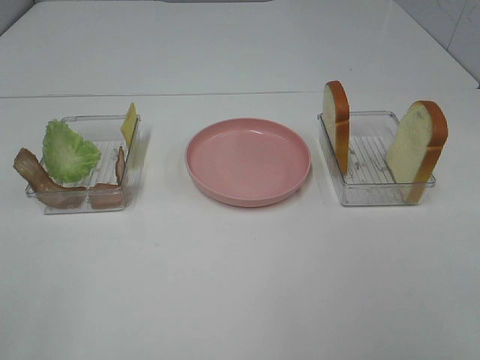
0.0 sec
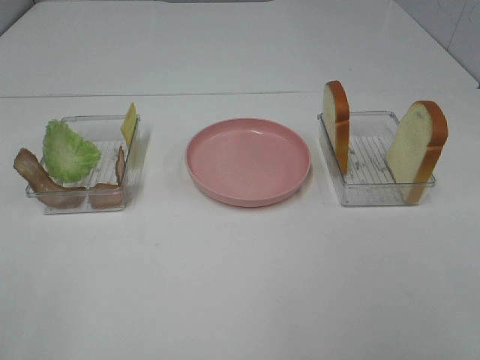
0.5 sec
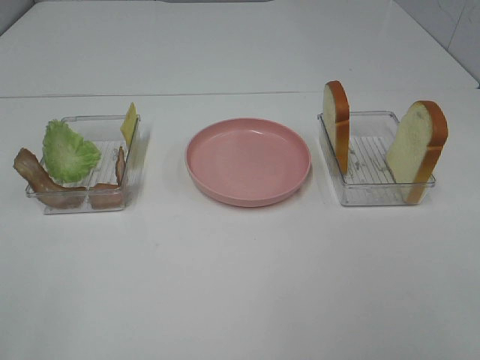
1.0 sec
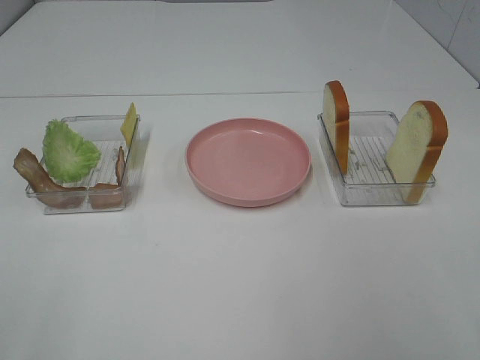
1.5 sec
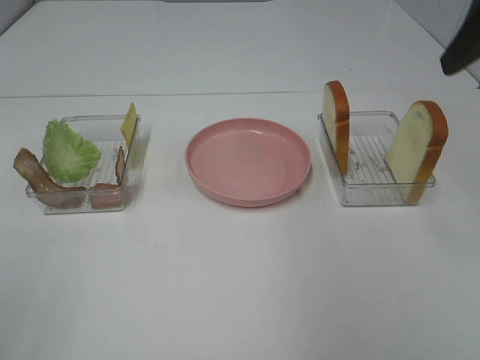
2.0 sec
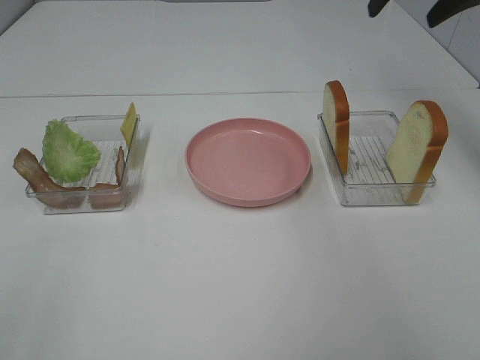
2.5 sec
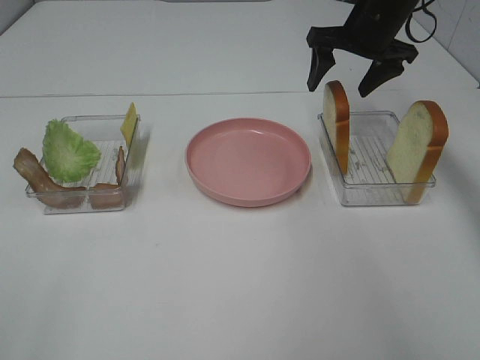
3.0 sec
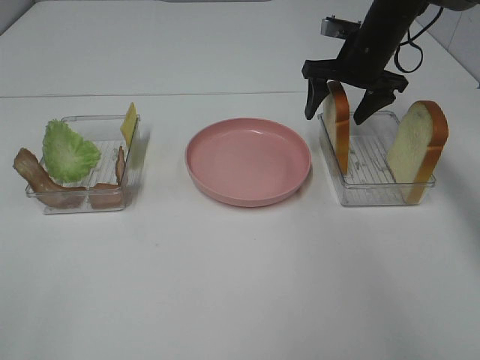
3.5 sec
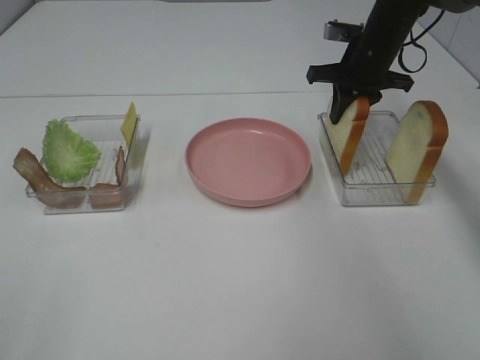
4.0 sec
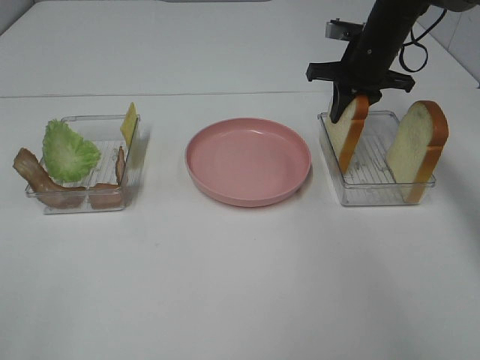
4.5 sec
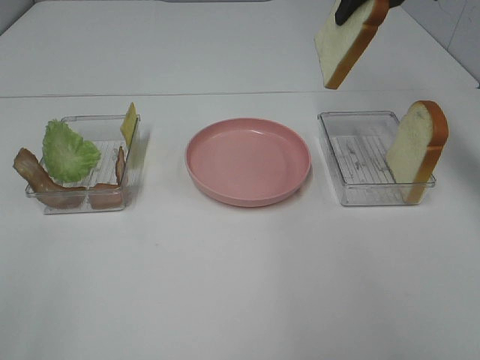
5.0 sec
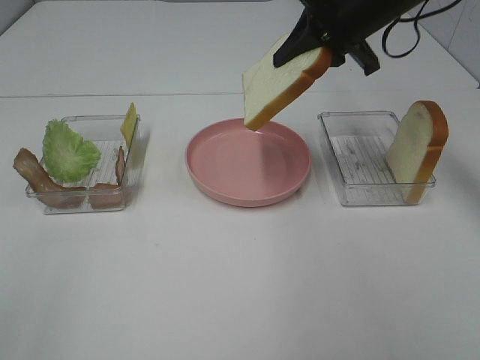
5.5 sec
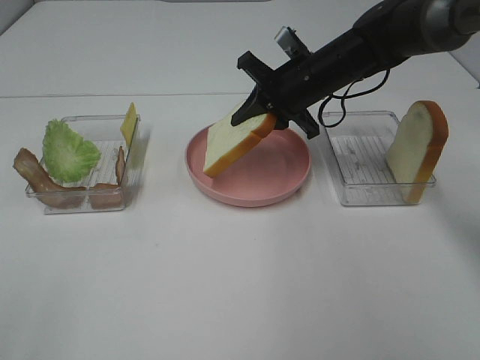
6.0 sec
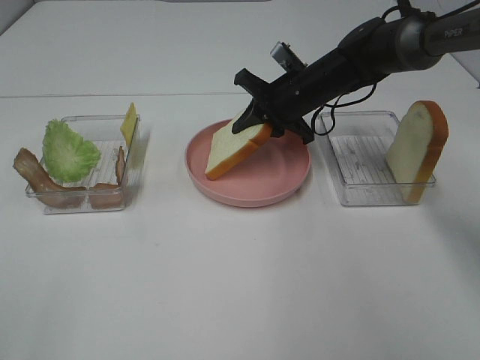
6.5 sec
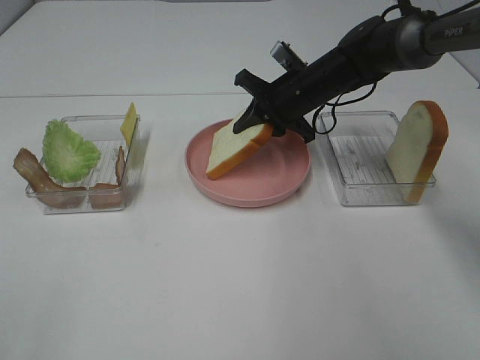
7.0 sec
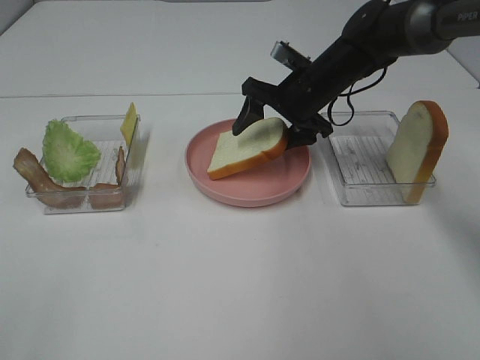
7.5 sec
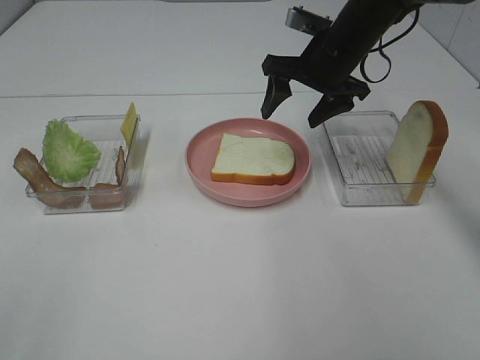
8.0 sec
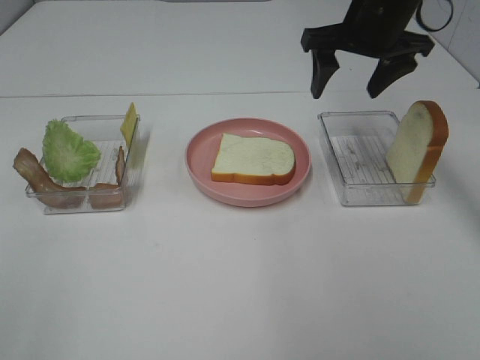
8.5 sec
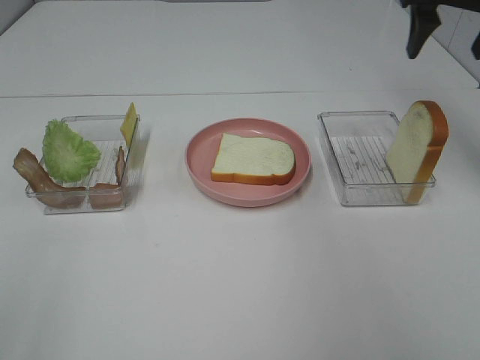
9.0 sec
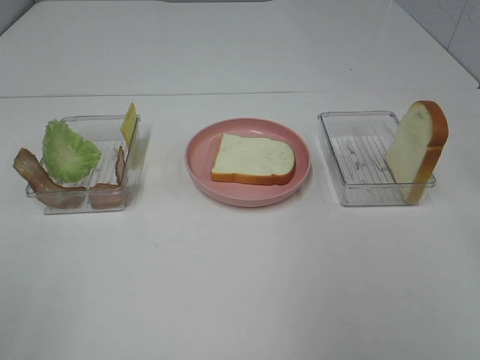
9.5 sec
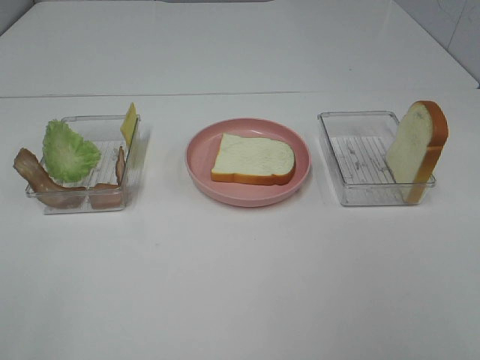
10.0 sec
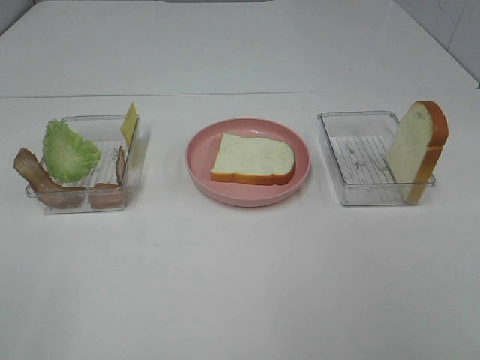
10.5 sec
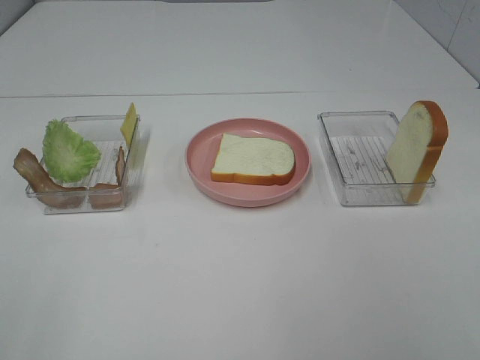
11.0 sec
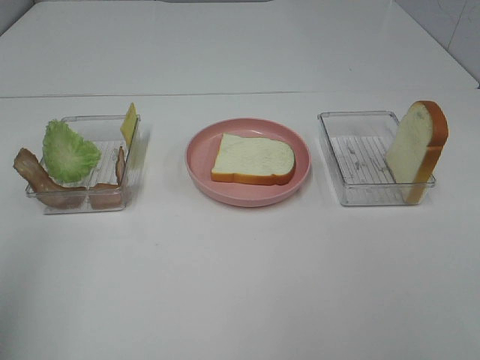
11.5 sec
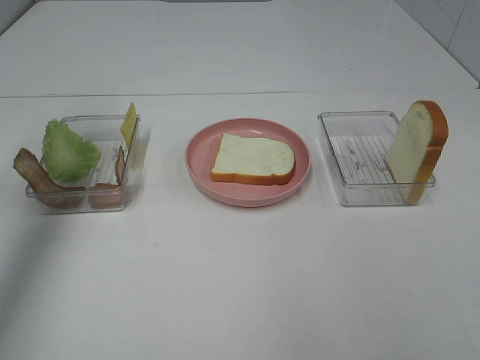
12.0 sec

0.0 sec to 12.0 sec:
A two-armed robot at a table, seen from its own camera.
Task of the whole recording: Make sandwiches.
Step, 0.0 sec to 4.0 sec: Right hand:grab the bread slice.
Step, 4.5 sec to 8.0 sec: Right hand:place the bread slice on the plate.
0.0 sec to 2.0 sec: The right gripper travels forward by about 30 cm.
2.0 sec to 4.0 sec: The right gripper heads forward and downward, covering roughly 30 cm, and closes its fingers.
4.0 sec to 6.0 sec: The right gripper goes about 10 cm to the left and backward, and travels upward and back again, some 15 cm each way.
6.0 sec to 8.0 sec: The right gripper shifts by approximately 5 cm, and opens its fingers.
8.0 sec to 10.0 sec: The right gripper goes approximately 50 cm backward.
10.0 sec to 12.0 sec: The left gripper moves forward, some 35 cm.

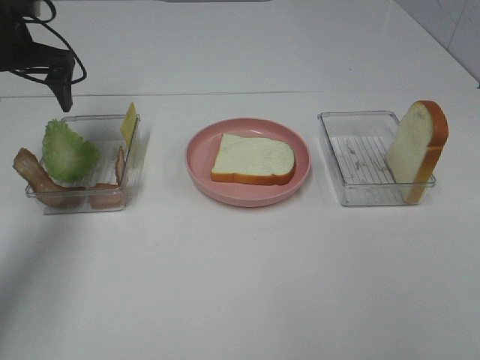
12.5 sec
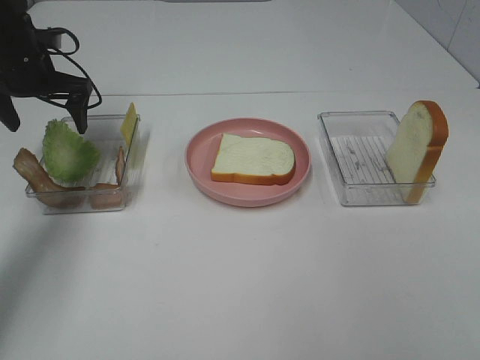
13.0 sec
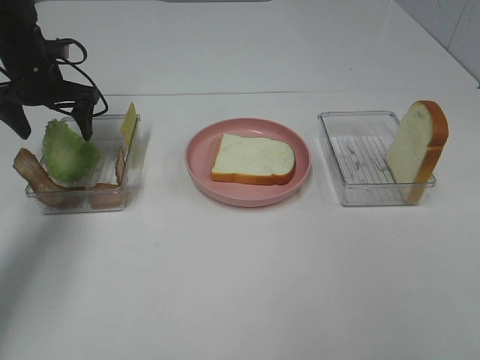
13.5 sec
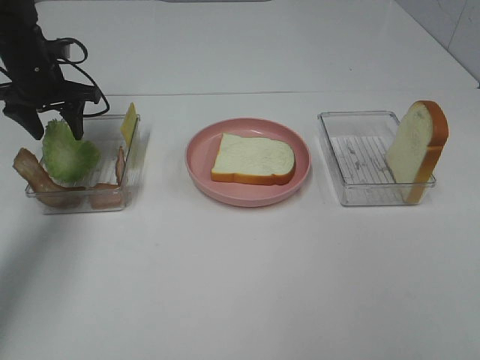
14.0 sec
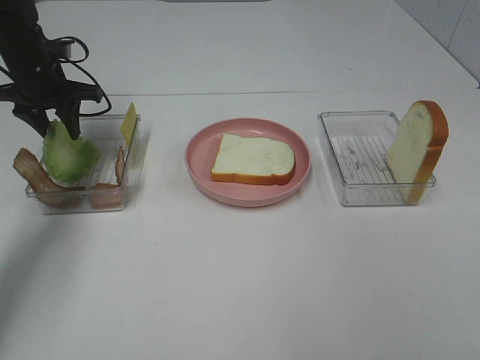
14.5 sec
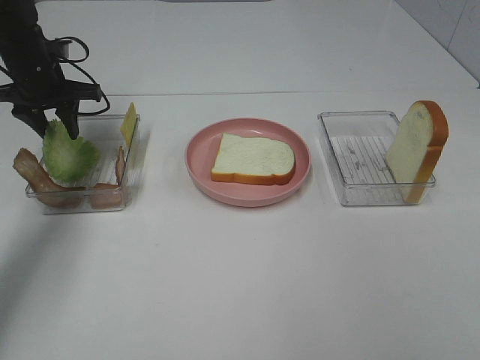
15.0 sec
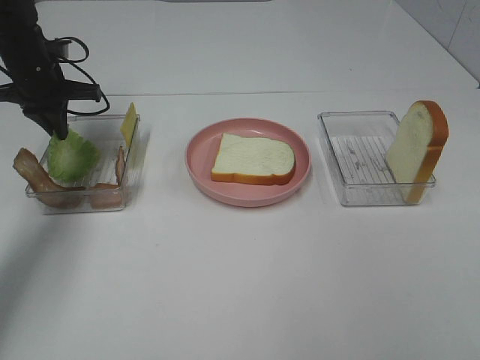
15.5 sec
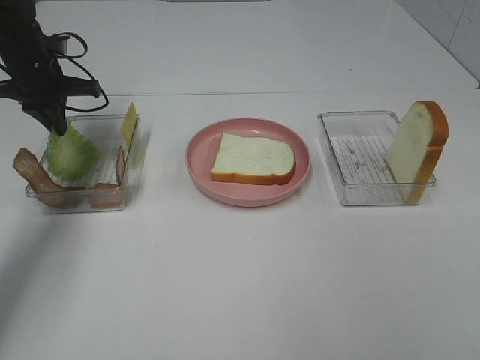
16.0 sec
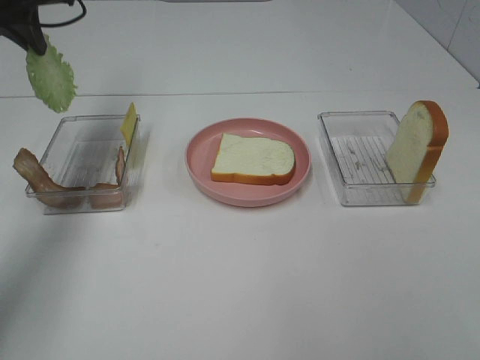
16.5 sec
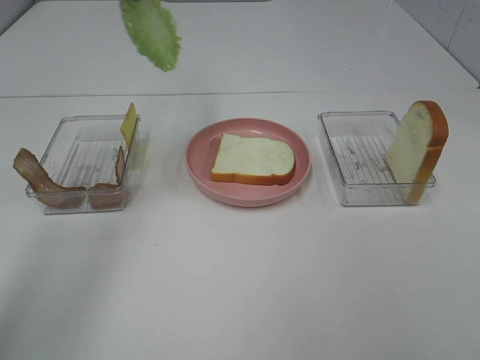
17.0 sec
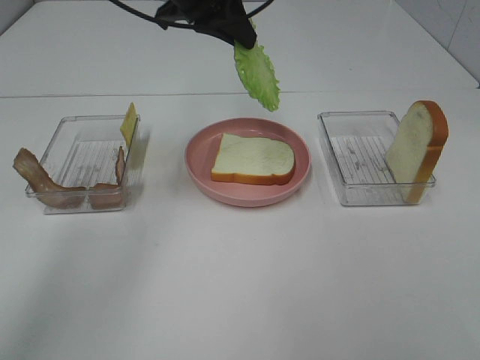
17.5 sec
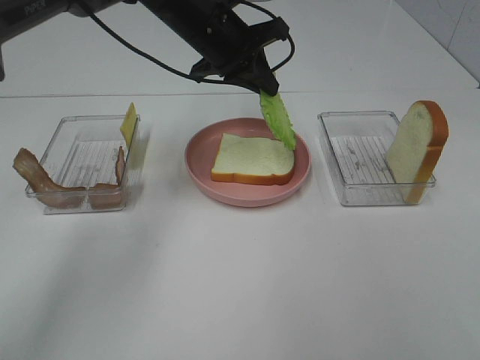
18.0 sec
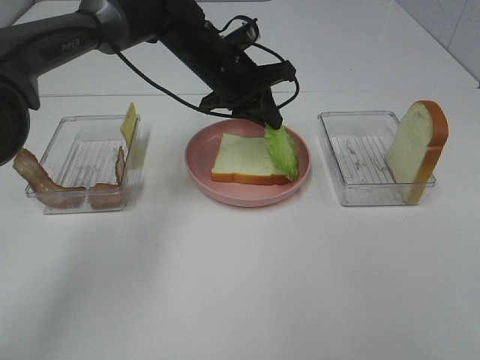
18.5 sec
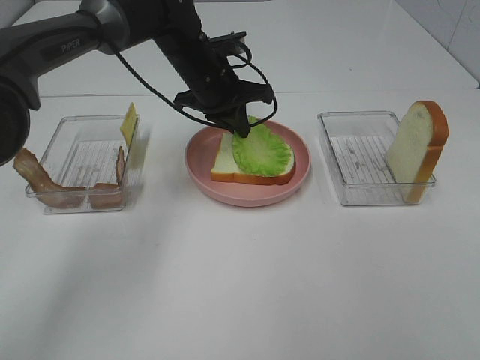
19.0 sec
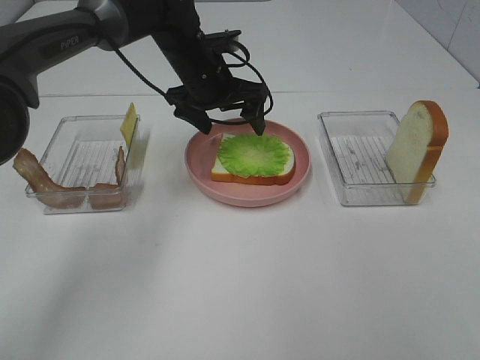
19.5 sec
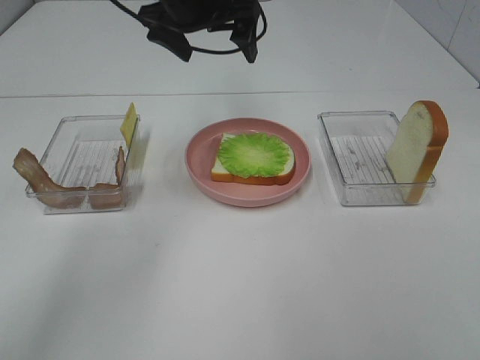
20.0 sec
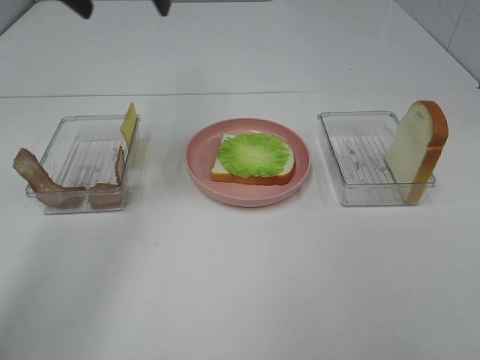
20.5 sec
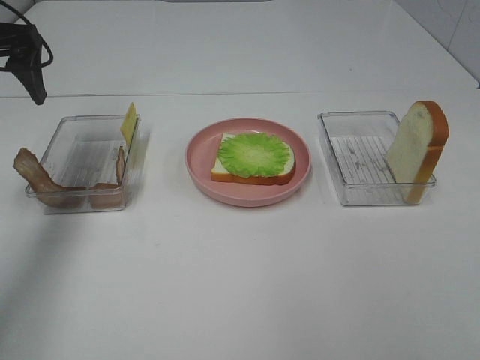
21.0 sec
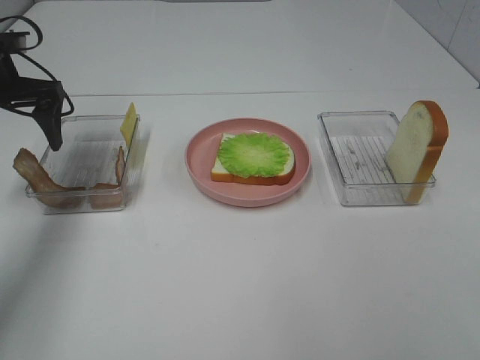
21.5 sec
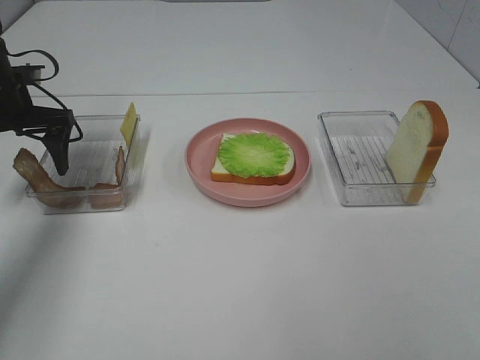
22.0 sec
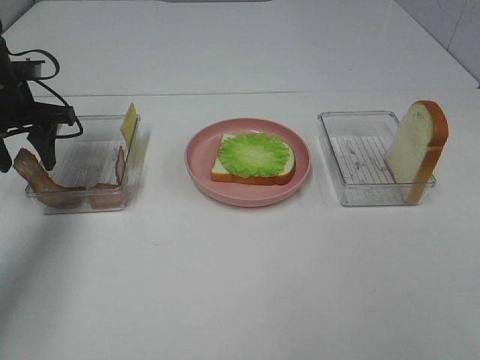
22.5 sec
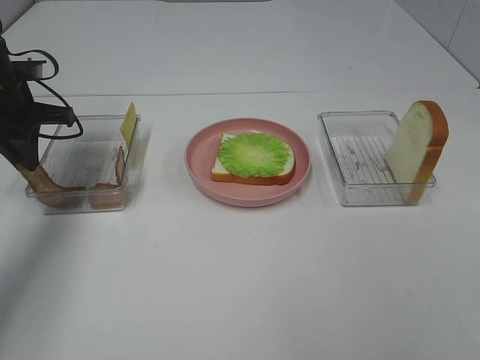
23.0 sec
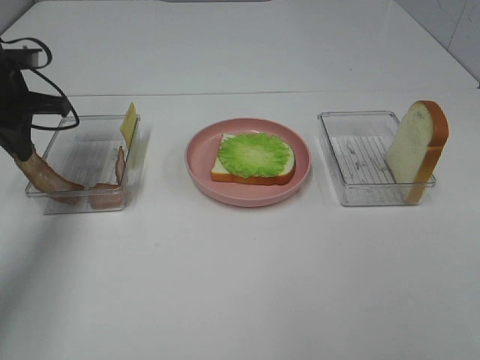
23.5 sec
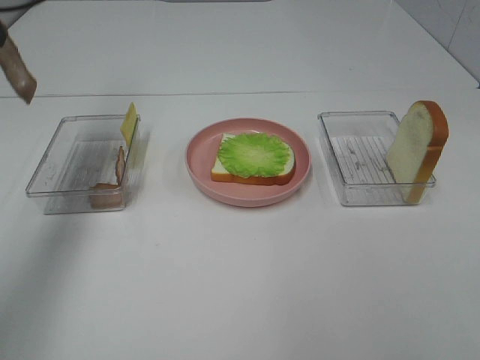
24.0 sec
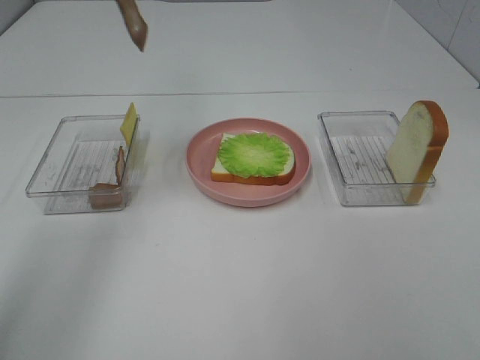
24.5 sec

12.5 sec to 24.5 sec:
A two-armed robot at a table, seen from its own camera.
Task of the whole recording: Make sandwiches.
Step, 12.5 sec to 15.5 sec: Left hand:grab the lettuce slice.
Step, 16.0 sec to 19.5 sec: Left hand:place the lettuce slice on the bread slice.
Step, 20.0 sec to 23.5 sec: Left hand:grab the bacon.
12.5 sec to 14.5 sec: The left gripper moves downward, some 5 cm, and closes up.
14.5 sec to 16.5 sec: The left gripper moves upward, some 15 cm, and closes.
16.5 sec to 18.5 sec: The left gripper is displaced to the right and downward by roughly 30 cm.
18.5 sec to 20.5 sec: The left gripper travels upward and to the left by about 25 cm, and opens its fingers.
20.5 sec to 22.5 sec: The left gripper goes about 20 cm downward and to the left, and closes.
22.5 sec to 24.5 sec: The left gripper heads upward and to the right, covering roughly 25 cm, and closes its fingers.

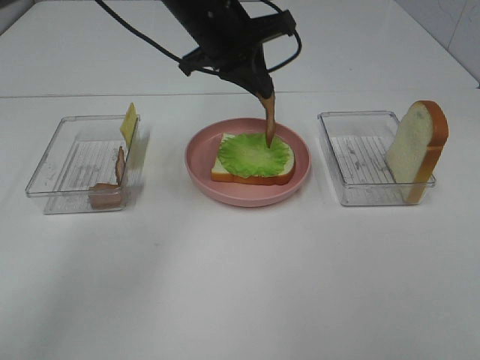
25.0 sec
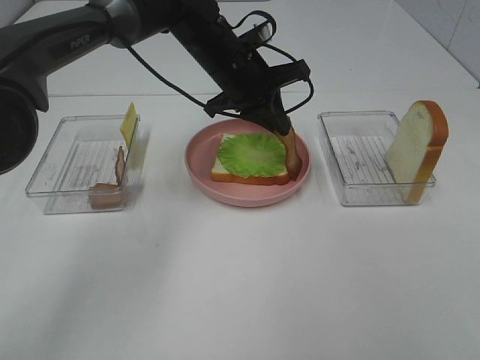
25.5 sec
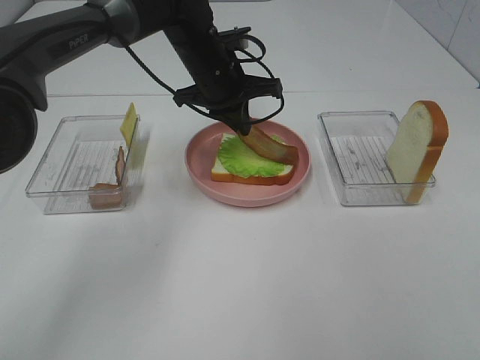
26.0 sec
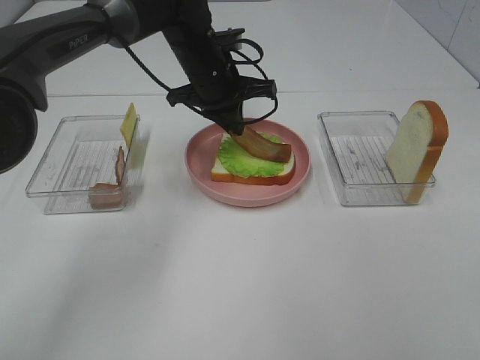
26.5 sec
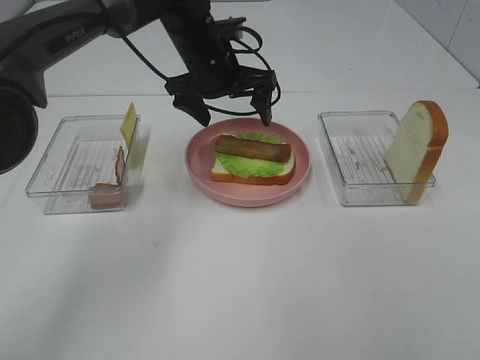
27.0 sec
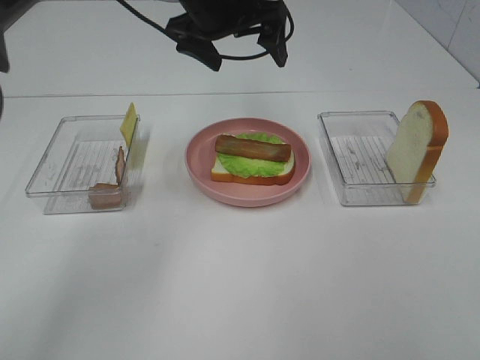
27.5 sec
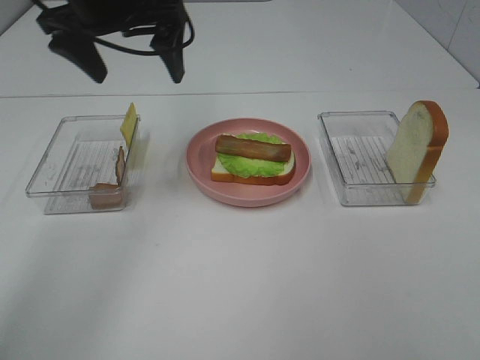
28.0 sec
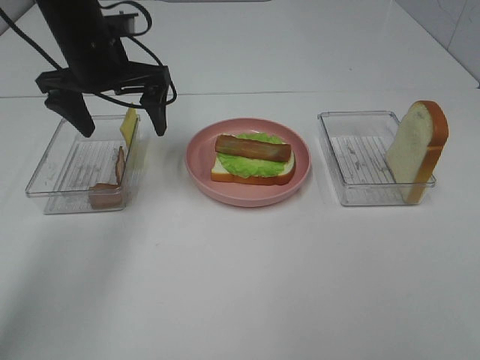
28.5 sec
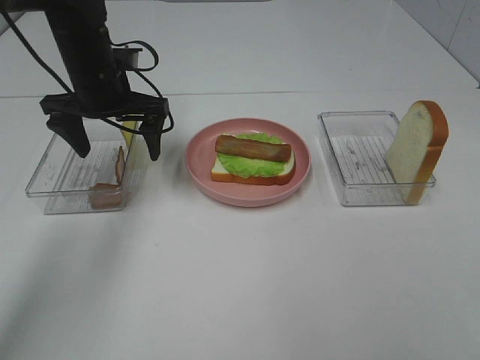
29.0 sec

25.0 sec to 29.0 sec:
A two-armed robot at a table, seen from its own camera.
Task of the whole recording: Make sandwiches.
Step, 25.0 sec to 27.0 sec: Left hand:place bacon on lettuce slice.
25.0 sec to 27.0 sec: The left gripper shifts by approximately 5 cm, and opens its fingers.
27.0 sec to 29.0 sec: The left gripper goes some 15 cm to the left.
